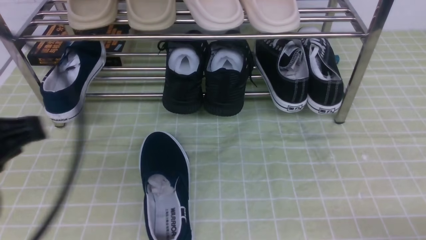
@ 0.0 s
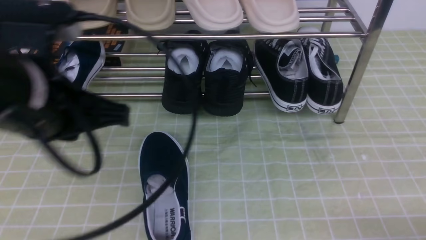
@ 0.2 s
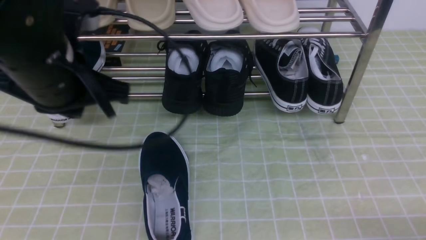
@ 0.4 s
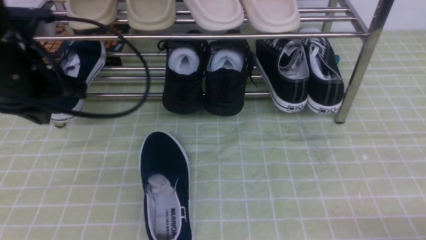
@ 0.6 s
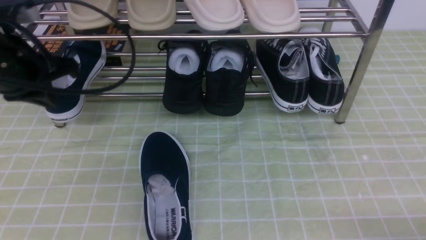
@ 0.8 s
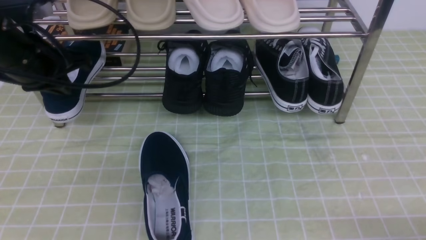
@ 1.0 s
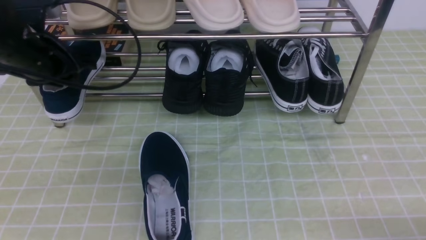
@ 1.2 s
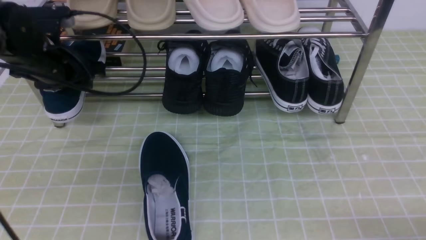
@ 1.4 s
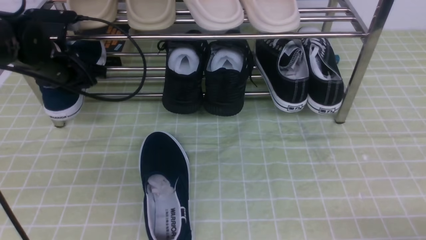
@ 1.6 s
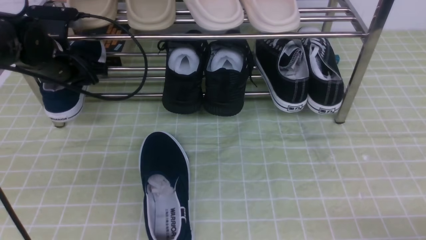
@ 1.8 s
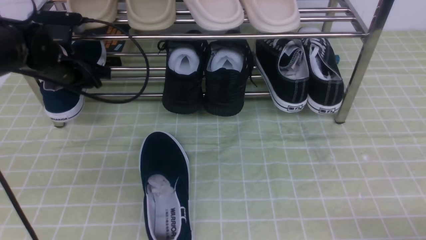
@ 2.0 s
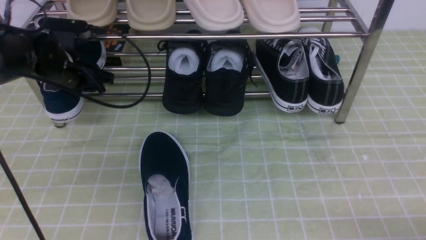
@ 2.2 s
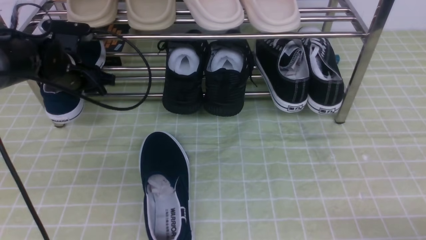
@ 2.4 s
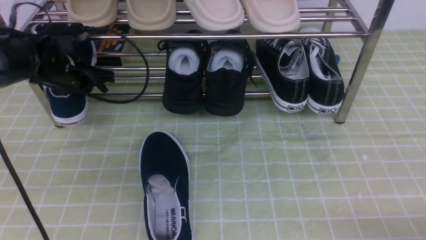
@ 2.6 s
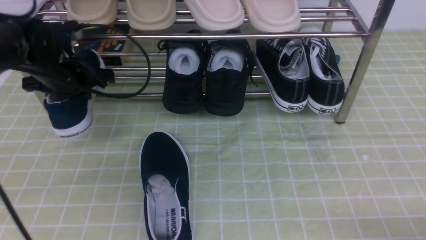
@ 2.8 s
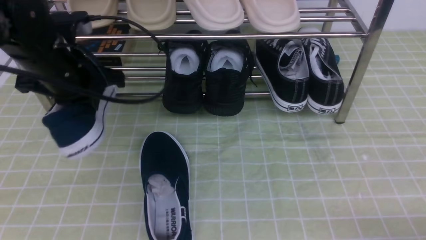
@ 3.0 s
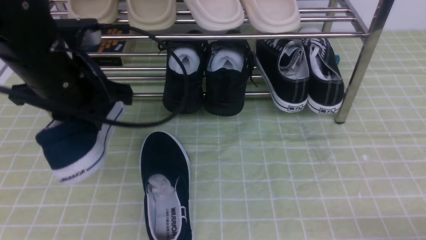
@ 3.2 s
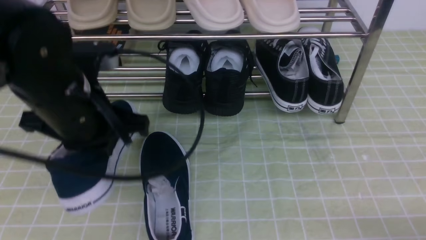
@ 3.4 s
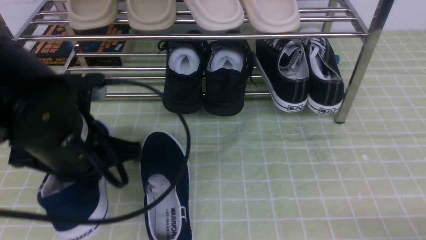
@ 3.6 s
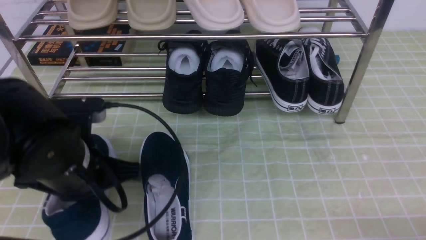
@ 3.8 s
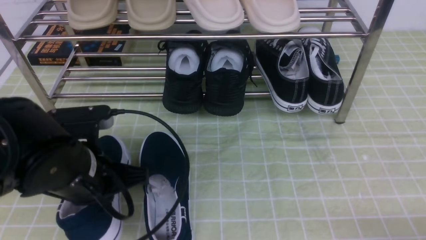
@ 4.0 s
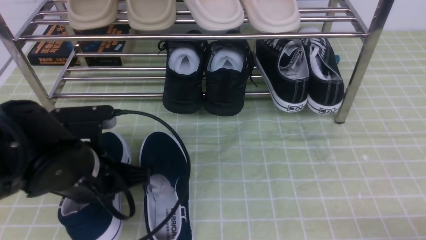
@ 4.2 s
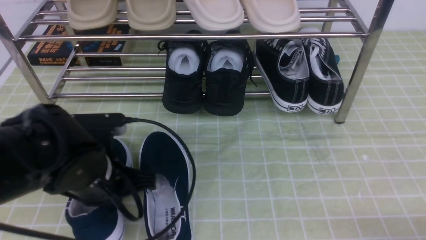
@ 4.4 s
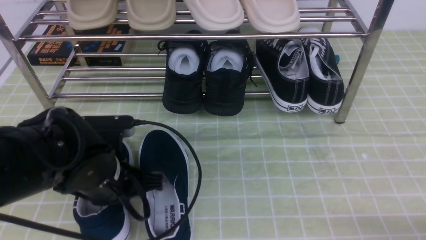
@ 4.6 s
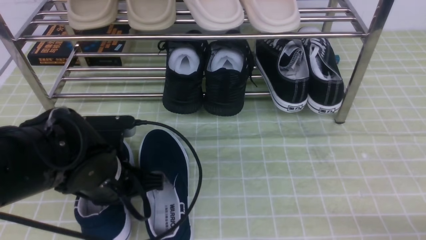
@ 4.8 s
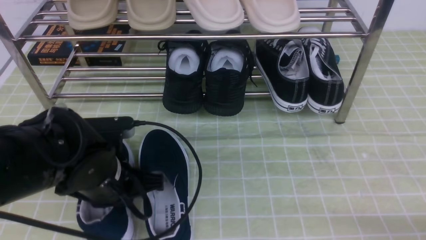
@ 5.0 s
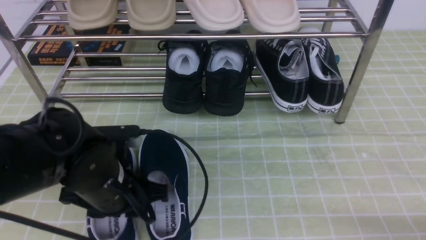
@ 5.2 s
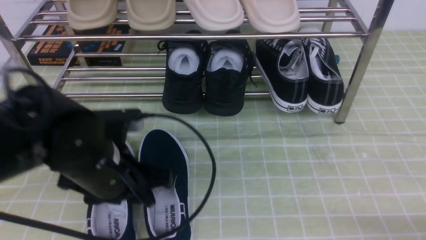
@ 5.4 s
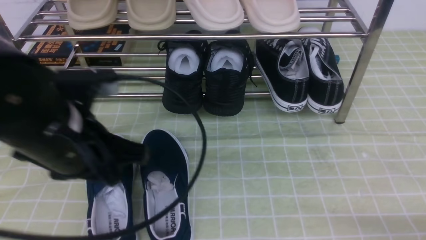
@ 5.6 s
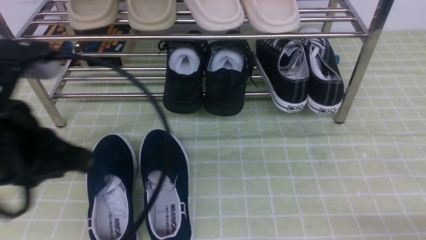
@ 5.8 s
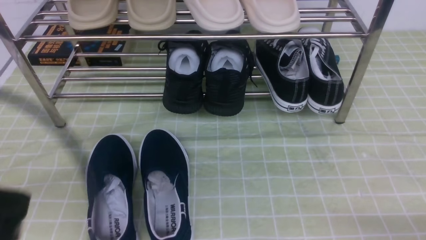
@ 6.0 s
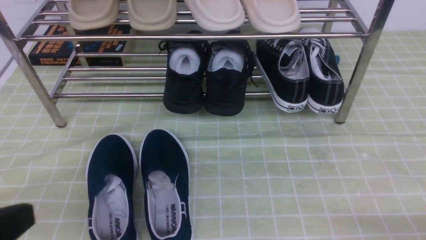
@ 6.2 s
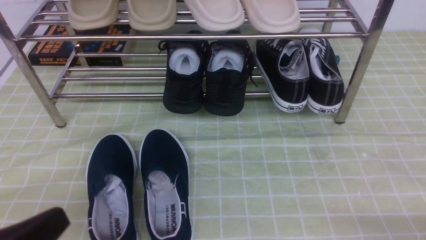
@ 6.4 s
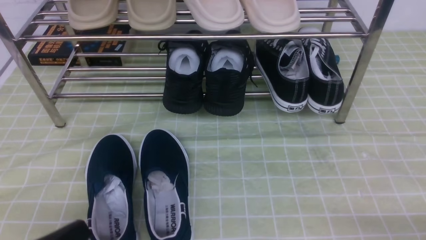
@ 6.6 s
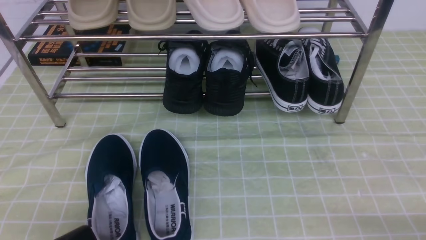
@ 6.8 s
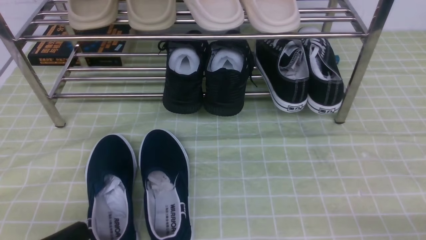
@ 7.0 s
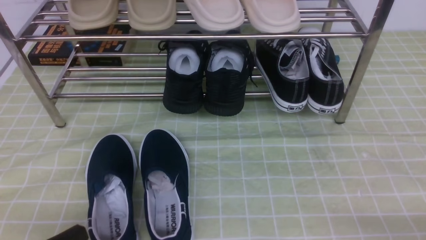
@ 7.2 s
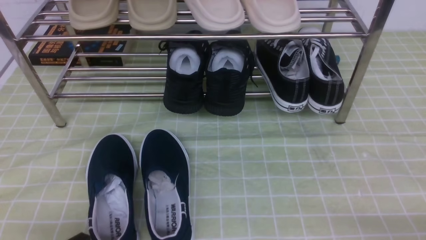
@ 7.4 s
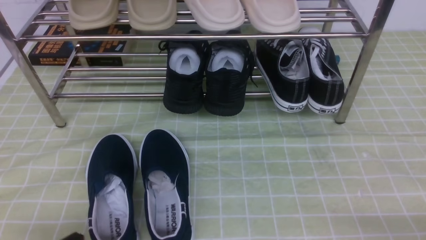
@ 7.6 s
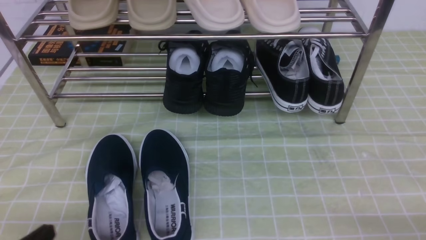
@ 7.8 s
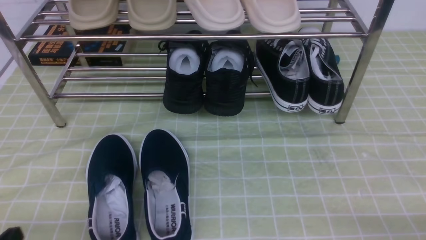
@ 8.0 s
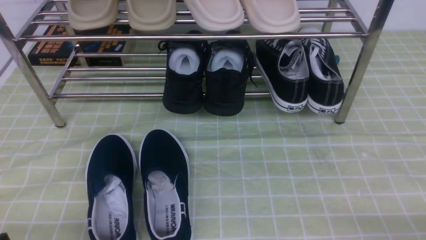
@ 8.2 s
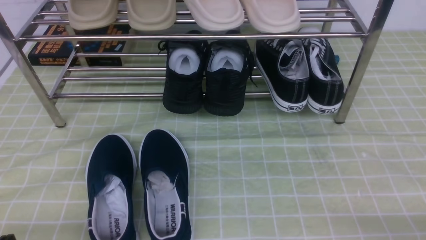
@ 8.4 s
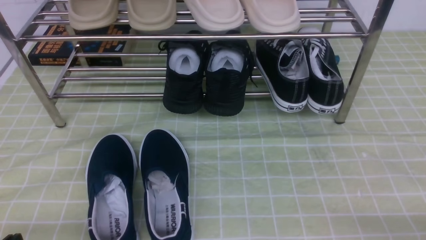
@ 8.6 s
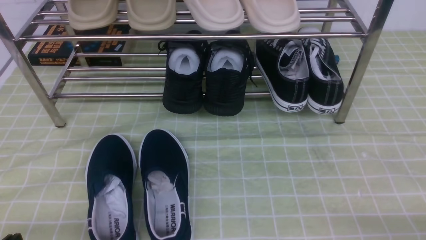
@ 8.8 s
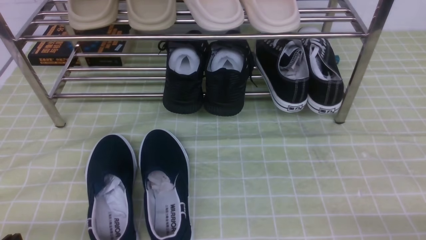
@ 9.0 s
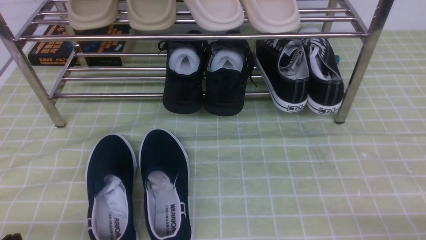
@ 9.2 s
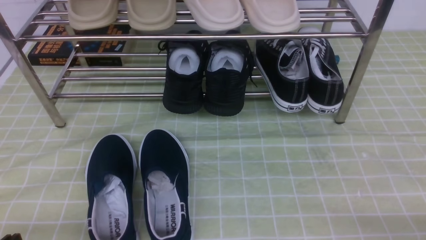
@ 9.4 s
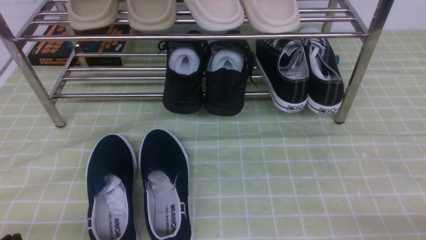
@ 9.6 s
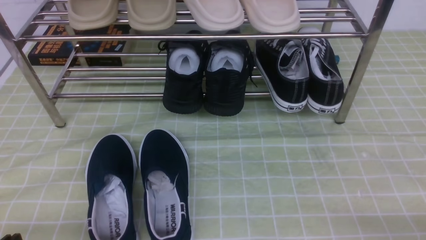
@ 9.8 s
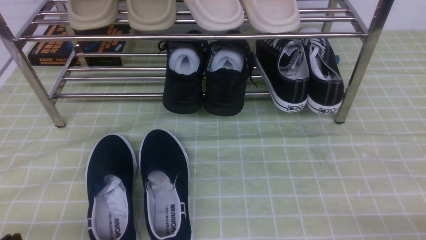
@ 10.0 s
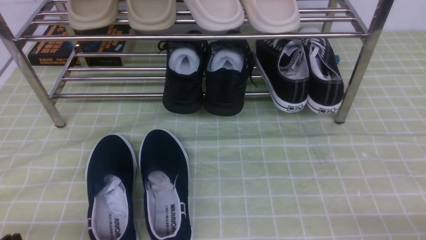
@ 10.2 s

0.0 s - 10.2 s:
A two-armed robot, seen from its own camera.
Step, 0.0 s - 2.6 s: use the left arm to clamp a shoe on the left side of the shoe rack.
Step, 2.8 s - 5.4 s: Use your left arm to remove the clamped shoe from the shoe rack and put it down.
0.0 s - 1.4 s: The left gripper goes about 25 cm forward, and opens up.
1.4 s - 3.0 s: The left gripper moves backward and to the right, some 10 cm, and closes up.
3.0 s - 4.4 s: The left gripper goes some 15 cm backward and downward.
4.4 s - 5.8 s: The left gripper heads upward and backward, covering roughly 15 cm, and opens, then closes once more.
5.8 s - 7.2 s: The left gripper shifts approximately 20 cm downward and backward.
8.8 s - 10.2 s: Neither gripper changes place.
